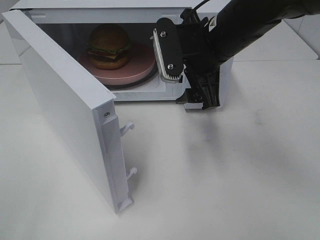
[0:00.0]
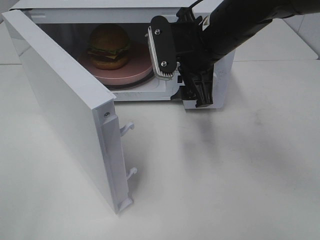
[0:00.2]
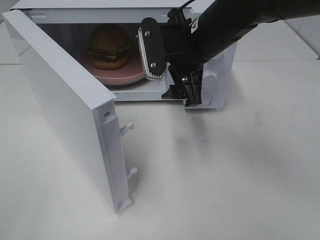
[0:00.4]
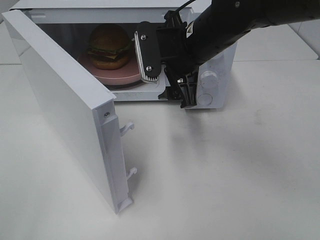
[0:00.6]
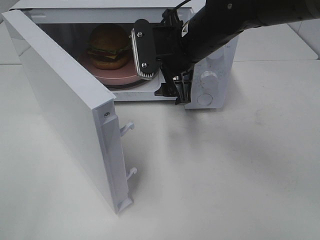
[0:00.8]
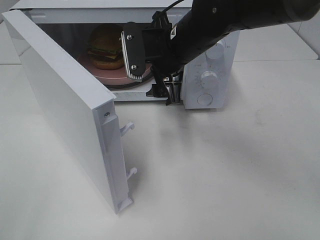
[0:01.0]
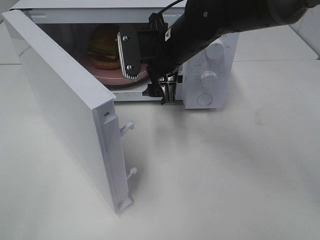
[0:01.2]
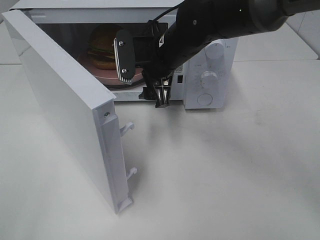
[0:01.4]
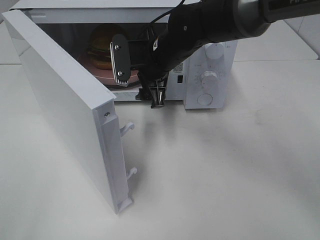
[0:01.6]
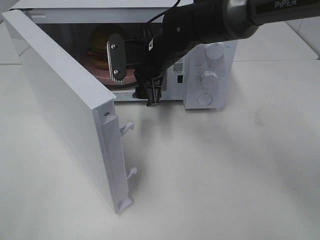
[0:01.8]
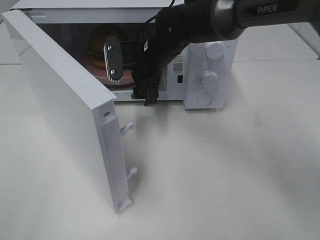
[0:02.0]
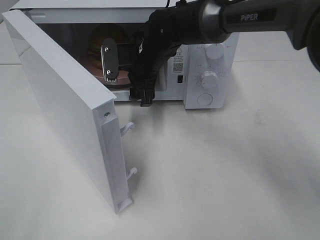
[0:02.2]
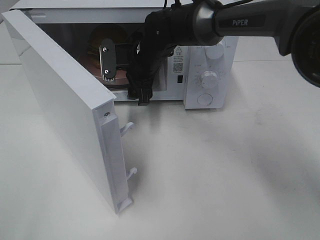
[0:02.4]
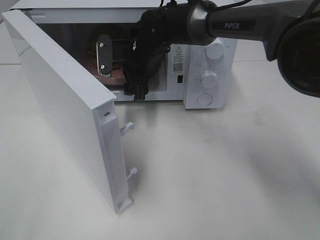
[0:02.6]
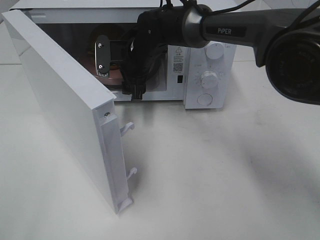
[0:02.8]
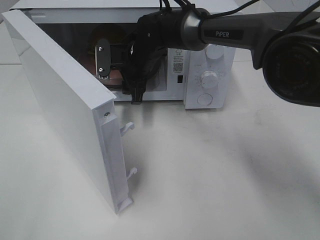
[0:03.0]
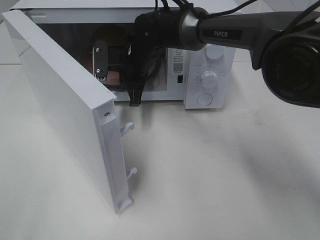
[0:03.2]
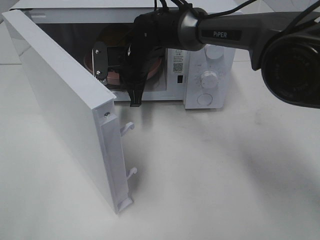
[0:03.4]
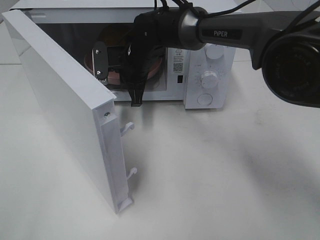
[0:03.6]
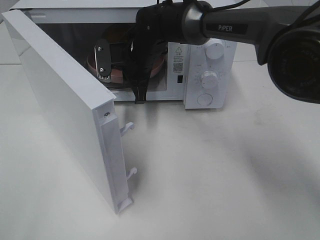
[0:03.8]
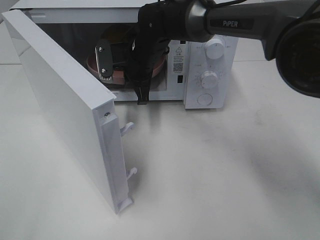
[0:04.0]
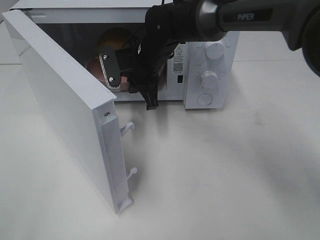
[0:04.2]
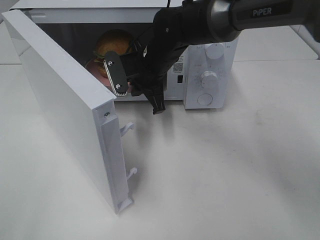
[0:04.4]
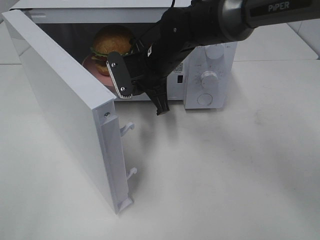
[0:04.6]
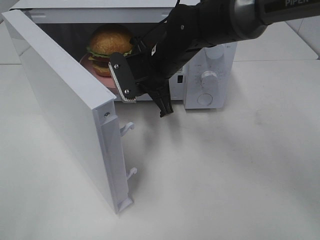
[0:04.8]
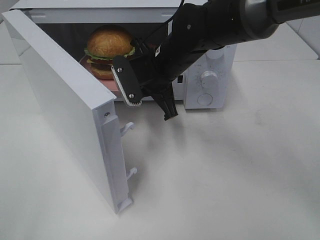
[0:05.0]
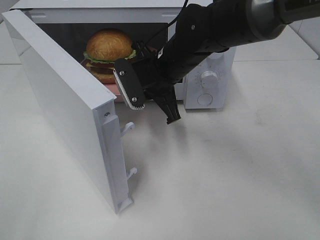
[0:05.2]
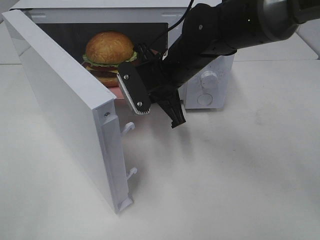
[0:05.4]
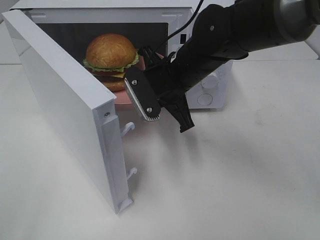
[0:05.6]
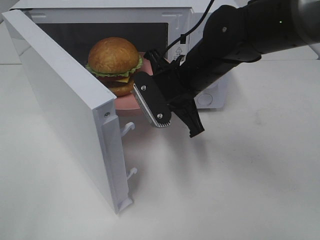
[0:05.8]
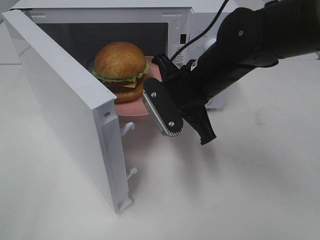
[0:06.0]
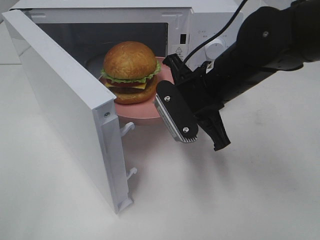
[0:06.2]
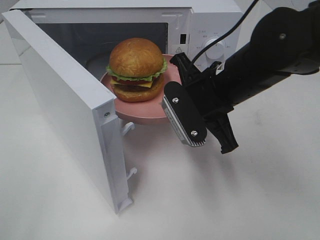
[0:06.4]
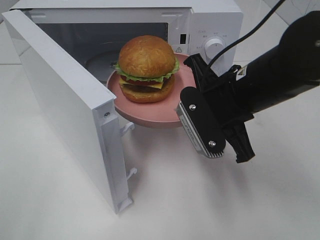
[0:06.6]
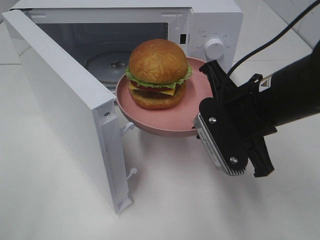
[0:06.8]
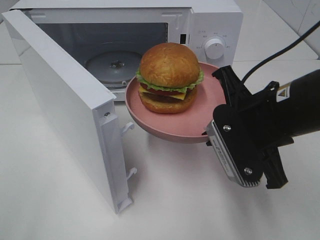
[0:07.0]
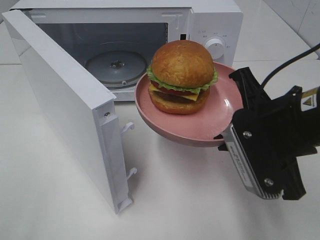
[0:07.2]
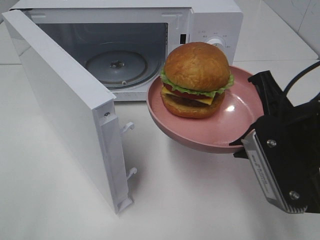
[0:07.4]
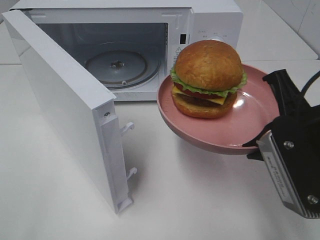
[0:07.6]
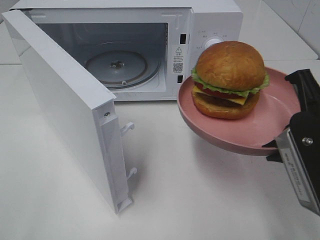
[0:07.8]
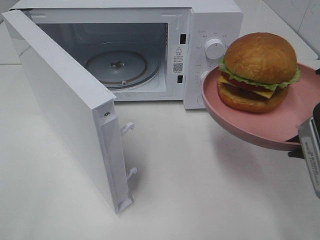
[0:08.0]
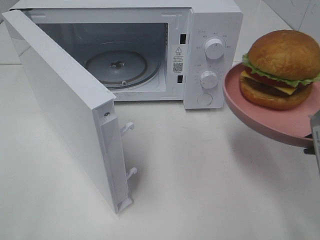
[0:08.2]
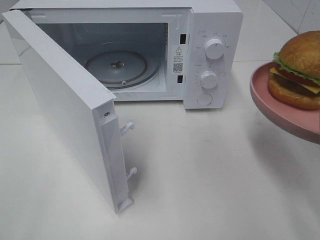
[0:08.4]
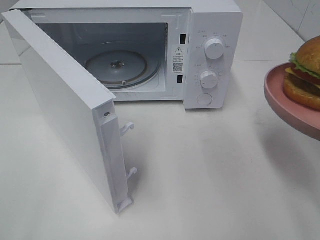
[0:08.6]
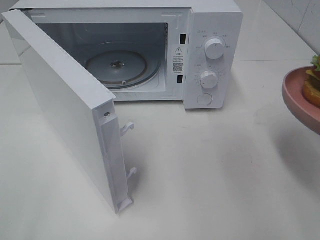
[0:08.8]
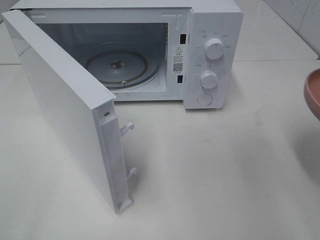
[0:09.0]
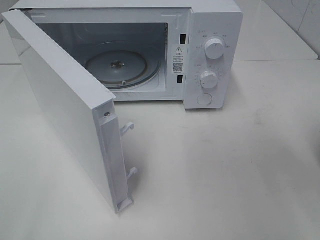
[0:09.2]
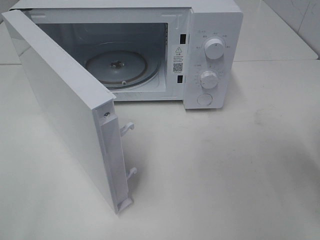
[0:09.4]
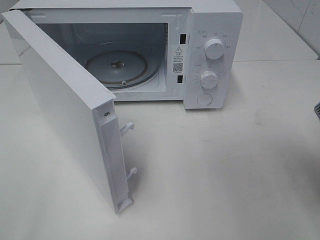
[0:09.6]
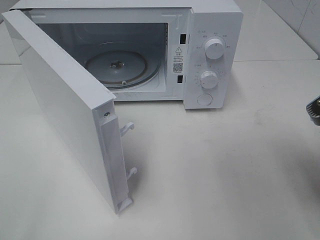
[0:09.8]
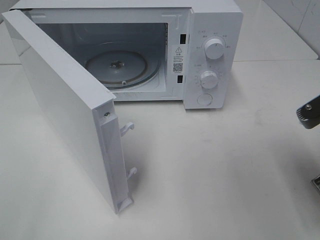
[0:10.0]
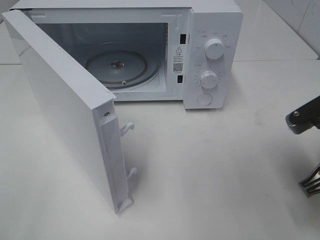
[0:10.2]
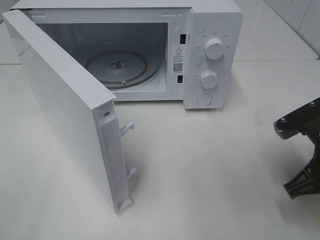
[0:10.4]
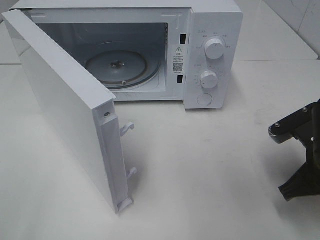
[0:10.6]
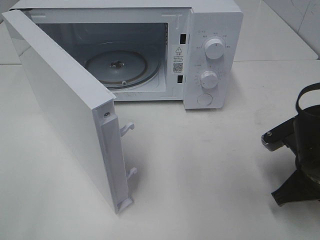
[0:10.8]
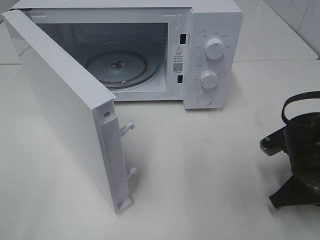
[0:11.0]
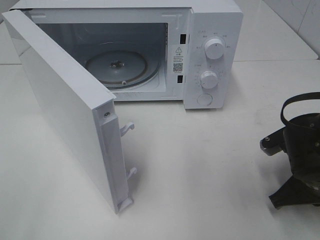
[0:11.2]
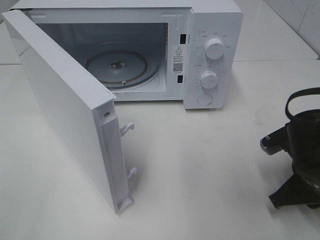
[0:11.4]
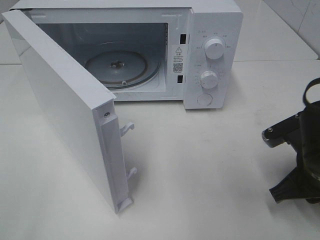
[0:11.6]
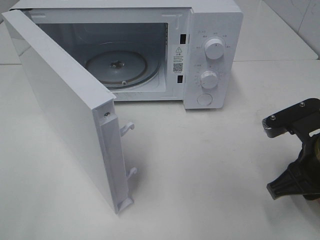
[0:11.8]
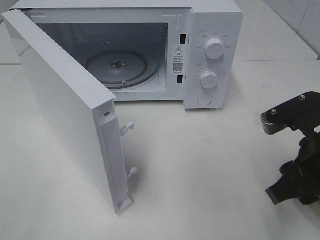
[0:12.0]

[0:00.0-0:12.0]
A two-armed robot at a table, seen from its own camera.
Task of the whole recording: Heat the burger.
Step, 0:00.0 to 0:03.8: Right hand: grab the plate with the hamburger.
Step, 0:04.0 to 0:11.6: Right hand: place the plate in the microwave.
0:00.0 to 0:01.6: The right gripper goes roughly 10 cm to the left, forward and downward.
0:01.6 to 0:03.0: The right gripper heads forward, covering about 5 cm.
0:03.0 to 0:04.4: The right gripper changes place by about 5 cm, and closes its fingers.
0:04.4 to 0:06.0: The right gripper goes about 10 cm backward and to the right.
0:06.0 to 0:07.6: The right gripper is displaced backward and to the right by roughly 20 cm.
0:07.6 to 0:09.0: The right gripper is displaced to the right by some 5 cm.
0:09.0 to 0:10.4: The right gripper goes some 10 cm downward and forward.
0:10.4 to 0:12.0: The right gripper goes downward and returns, some 5 cm each way, and opens.

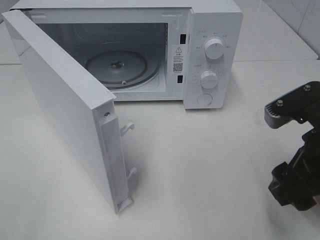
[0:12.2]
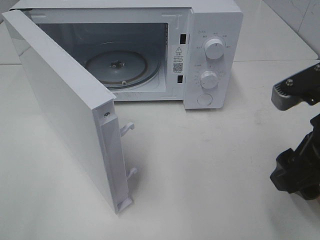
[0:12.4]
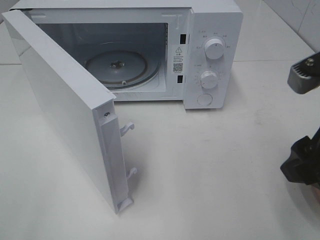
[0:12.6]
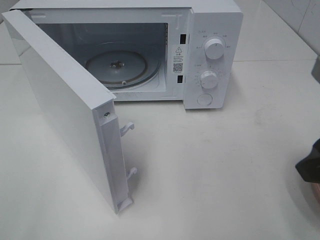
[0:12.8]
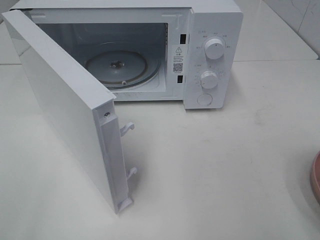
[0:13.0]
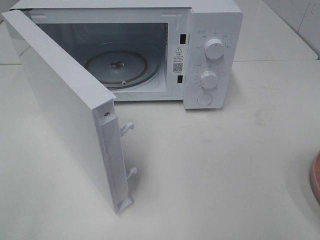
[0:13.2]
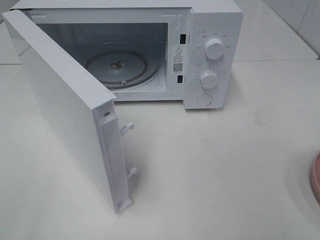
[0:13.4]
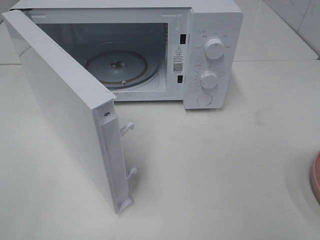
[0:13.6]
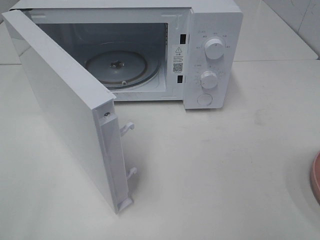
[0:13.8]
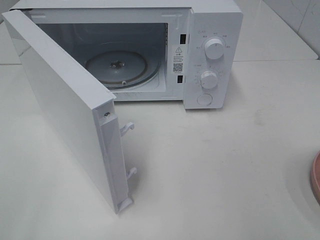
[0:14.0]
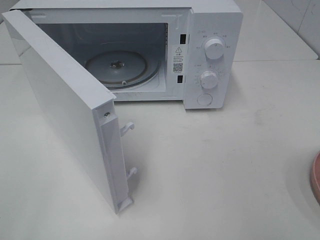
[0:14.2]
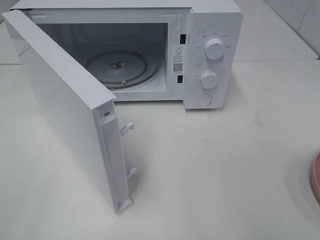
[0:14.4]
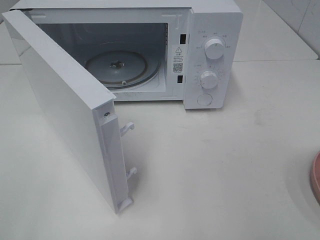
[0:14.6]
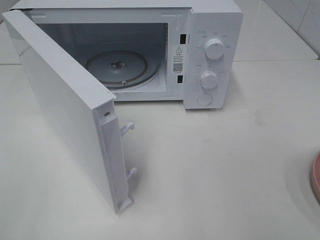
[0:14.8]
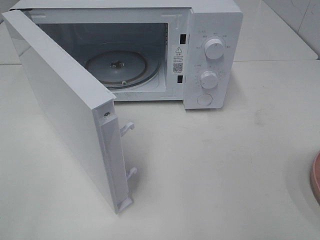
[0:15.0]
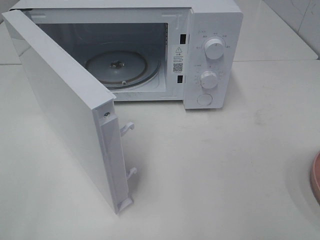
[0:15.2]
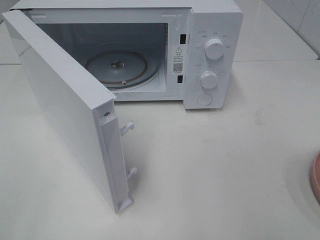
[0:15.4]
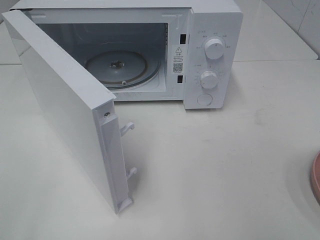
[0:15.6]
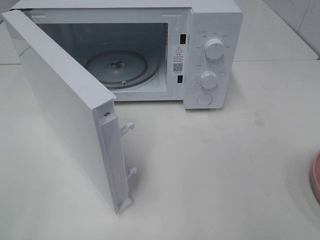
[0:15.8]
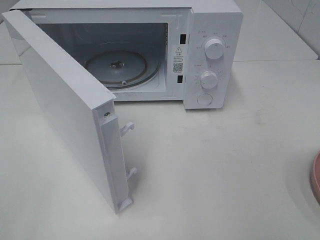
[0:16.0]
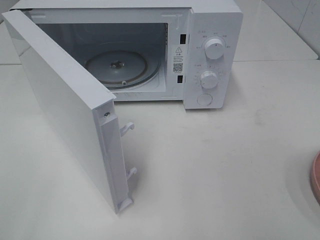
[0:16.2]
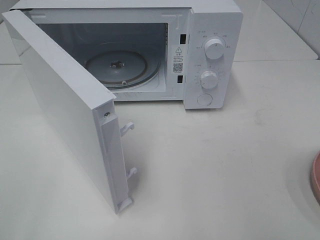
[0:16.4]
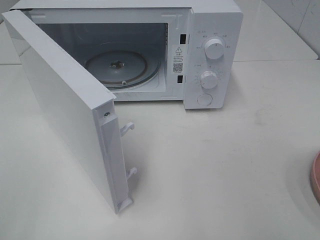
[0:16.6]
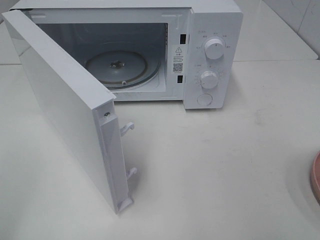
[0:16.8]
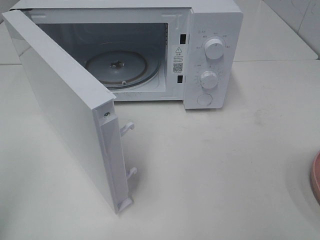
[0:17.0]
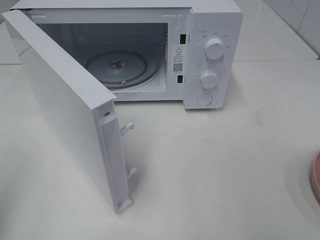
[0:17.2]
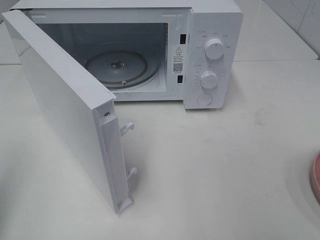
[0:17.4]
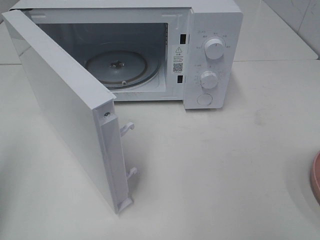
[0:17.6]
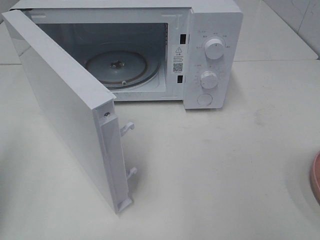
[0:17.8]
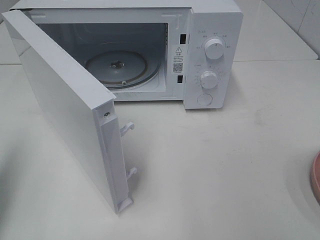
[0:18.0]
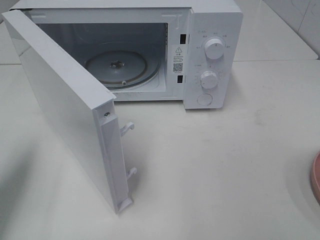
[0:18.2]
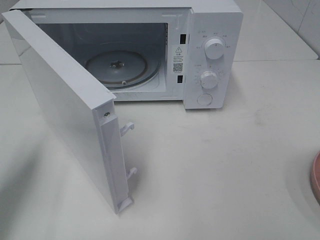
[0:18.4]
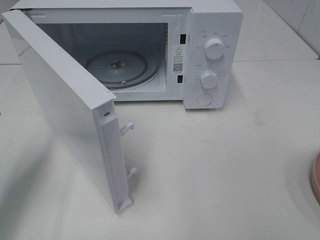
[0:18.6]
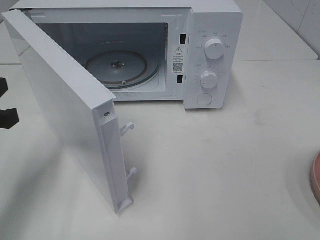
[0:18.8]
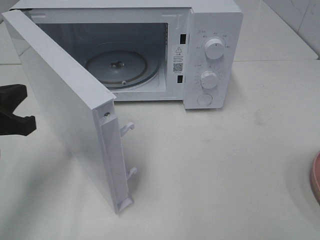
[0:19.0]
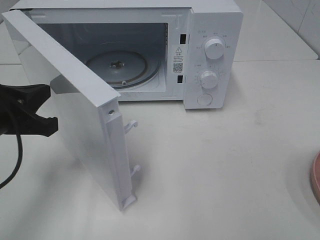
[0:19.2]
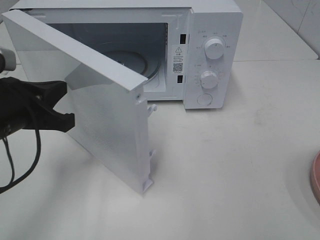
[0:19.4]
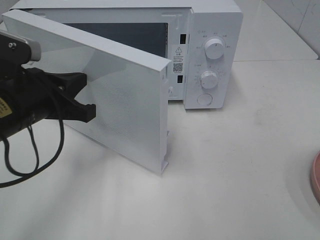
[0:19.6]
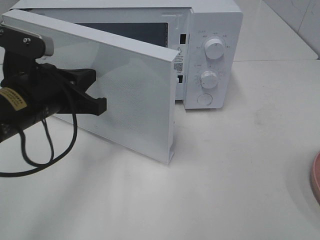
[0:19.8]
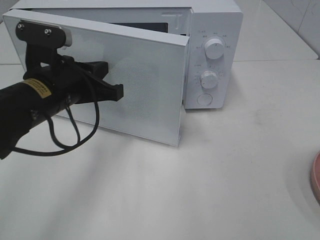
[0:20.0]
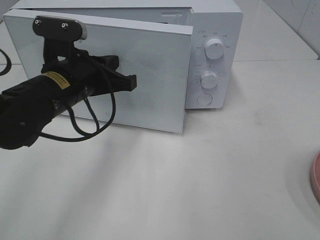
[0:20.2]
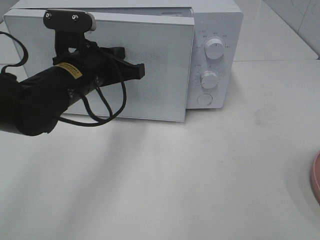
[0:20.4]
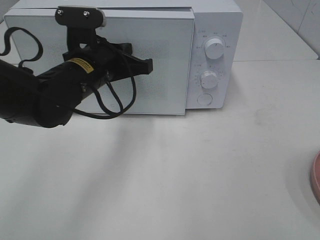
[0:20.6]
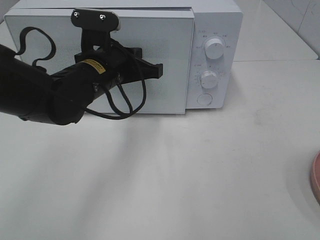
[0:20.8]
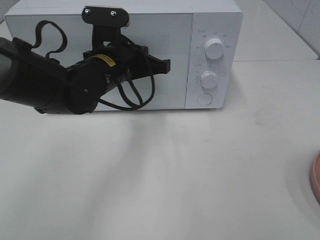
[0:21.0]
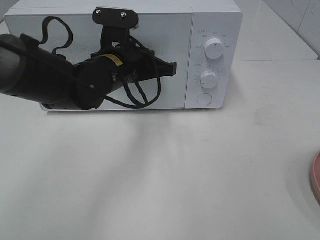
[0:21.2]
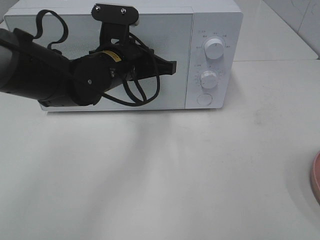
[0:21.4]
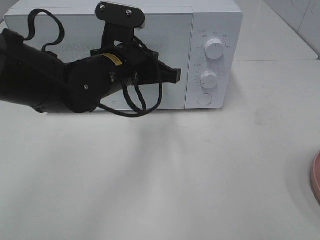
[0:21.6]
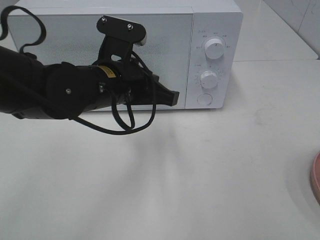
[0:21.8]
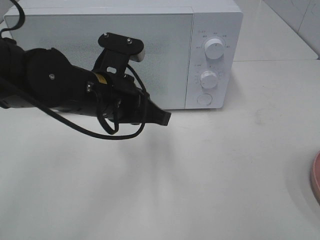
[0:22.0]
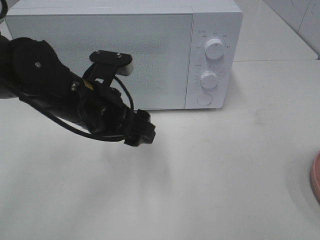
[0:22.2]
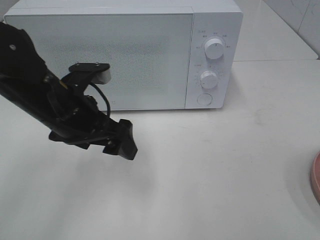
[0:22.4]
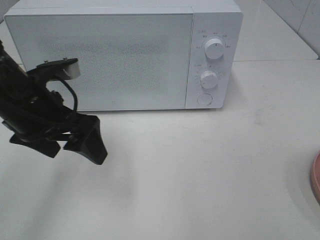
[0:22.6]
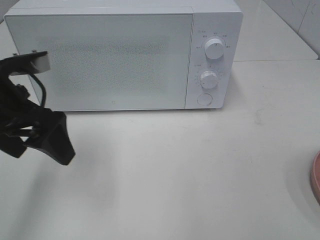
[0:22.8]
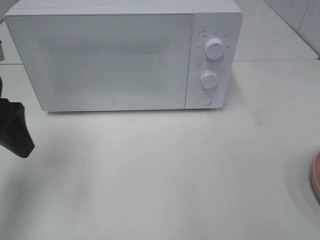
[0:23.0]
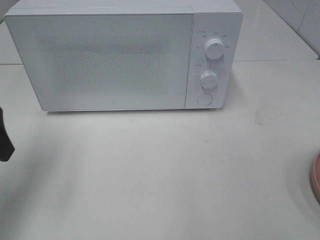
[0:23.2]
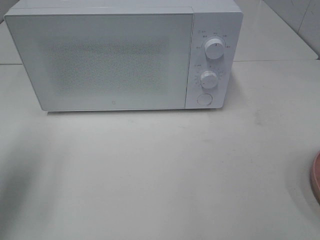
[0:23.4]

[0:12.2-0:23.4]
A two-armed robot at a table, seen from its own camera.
Task of the whole recording: Heat the burger.
Step, 0:12.2 to 0:21.8: Left hand: close the microwave door.
0:12.2 to 0:13.8: The right gripper heads backward, upward and to the right, covering approximately 20 cm.
0:17.0 to 0:18.6: The left gripper is displaced forward and downward by approximately 15 cm.
0:18.6 to 0:20.2: The left gripper heads to the right and forward, covering approximately 20 cm.
0:20.2 to 0:21.8: The left gripper goes about 5 cm to the right.
0:21.8 to 0:23.4: The left gripper moves to the left, roughly 25 cm, and opens up.
